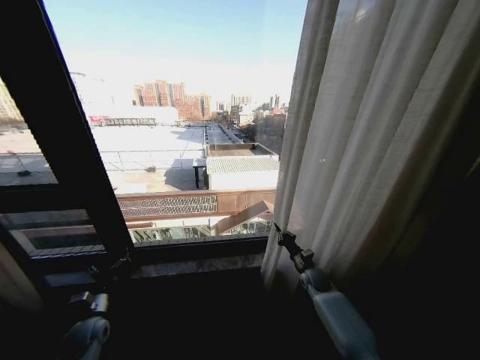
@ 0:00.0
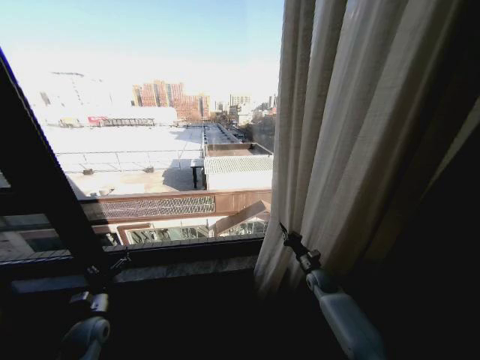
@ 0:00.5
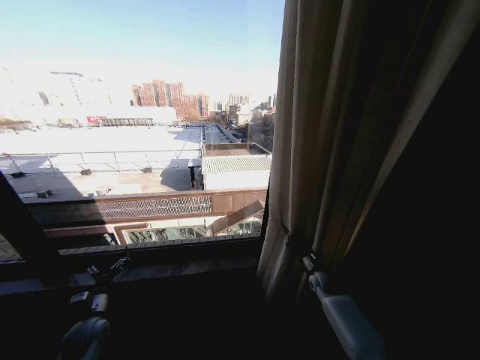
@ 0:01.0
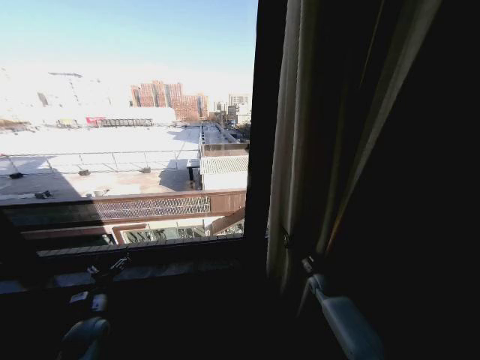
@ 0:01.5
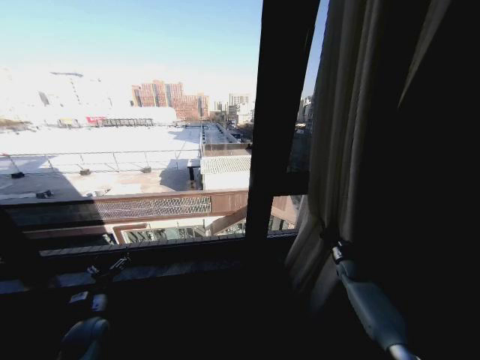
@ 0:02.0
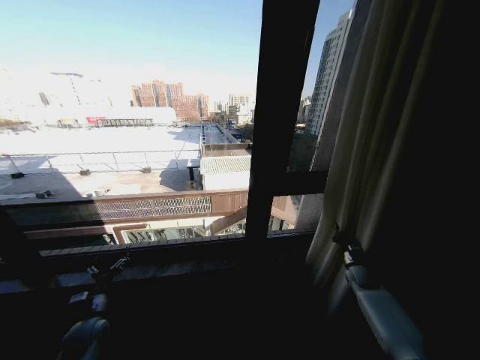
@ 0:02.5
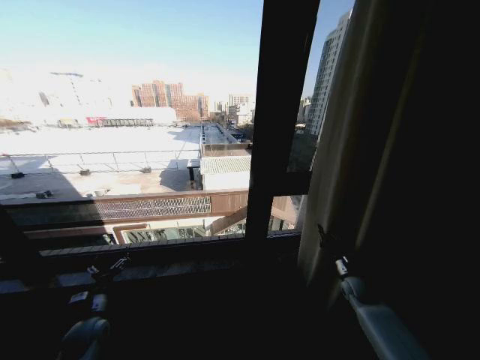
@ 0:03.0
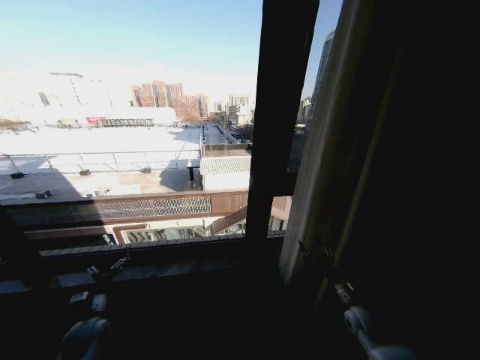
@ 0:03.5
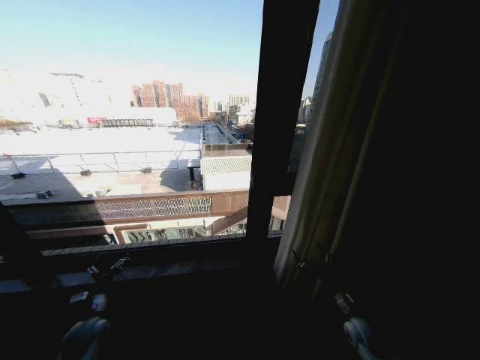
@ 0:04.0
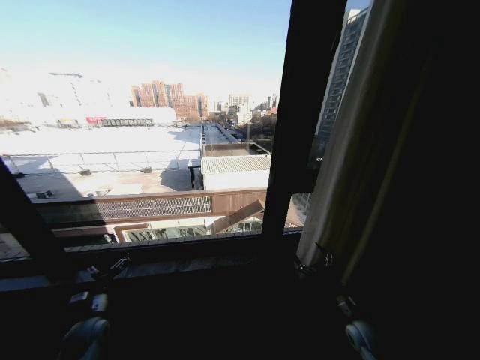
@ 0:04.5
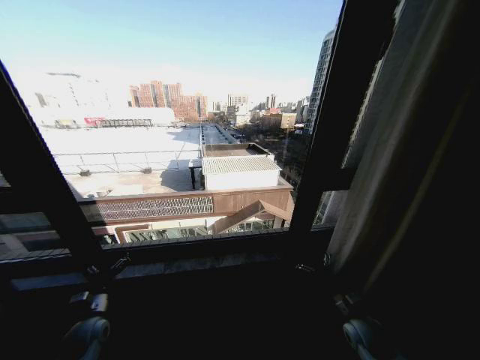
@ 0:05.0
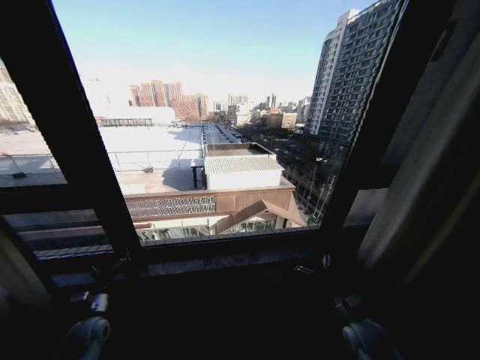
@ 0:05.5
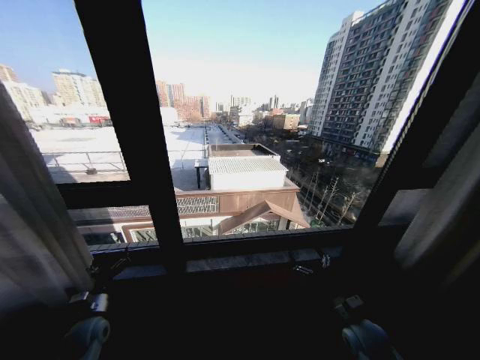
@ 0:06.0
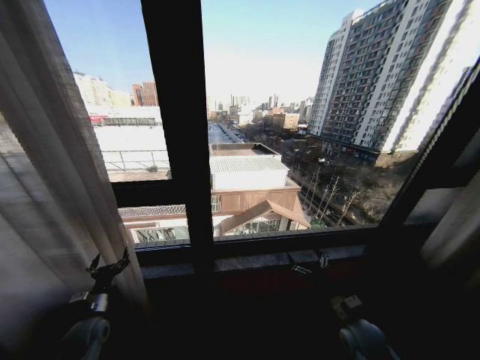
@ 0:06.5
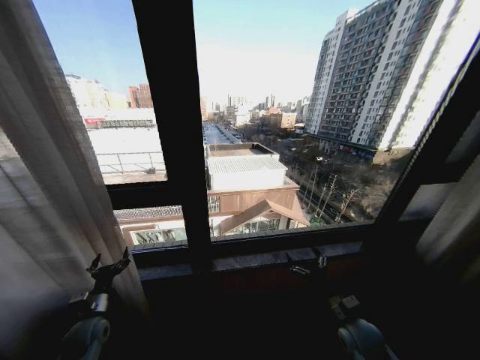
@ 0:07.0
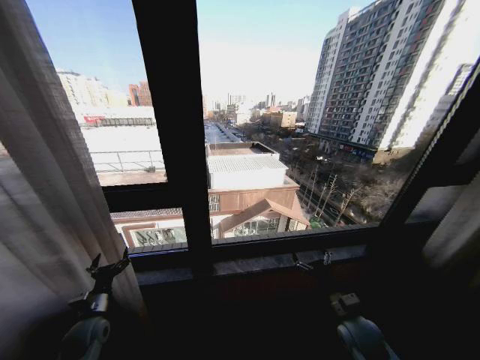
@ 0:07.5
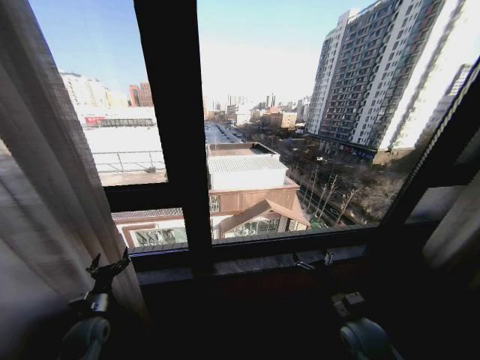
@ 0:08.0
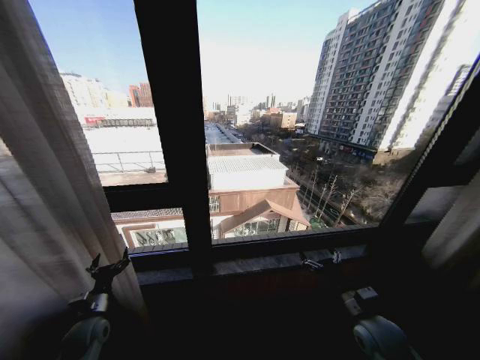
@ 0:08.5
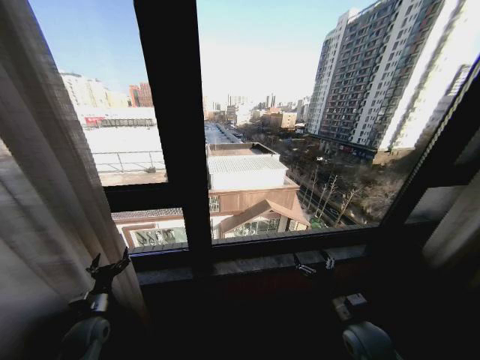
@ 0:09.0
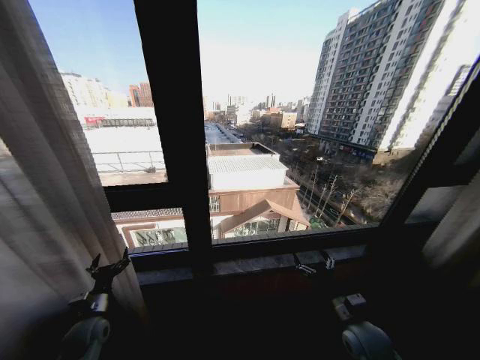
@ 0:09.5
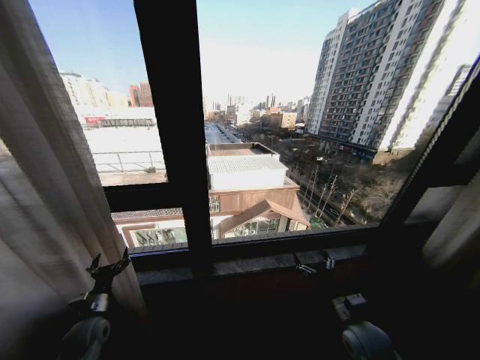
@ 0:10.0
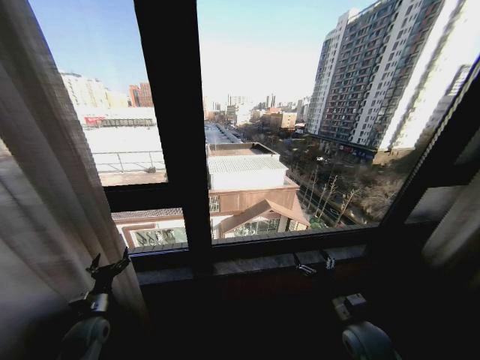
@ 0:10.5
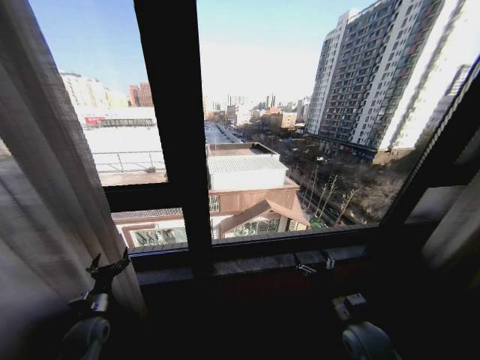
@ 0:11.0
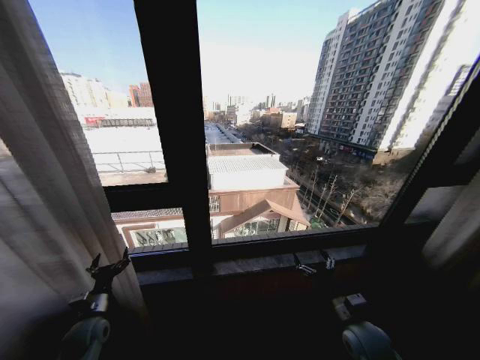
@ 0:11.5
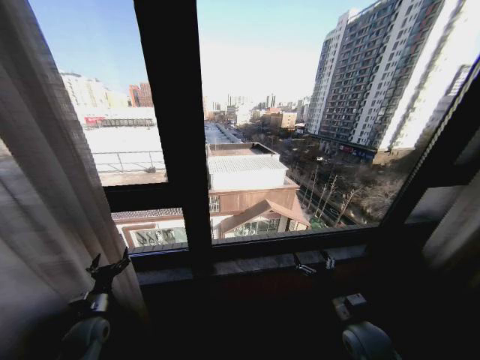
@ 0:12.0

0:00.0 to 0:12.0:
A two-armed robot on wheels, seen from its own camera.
Task of the whole recording: Open the curtains by pulling them apart, changing their state from closed to fully open.
0:00.0 to 0:02.0: The right gripper goes some 15 cm to the right.
0:02.0 to 0:04.0: The right gripper moves backward and to the left, about 20 cm, and opens up.
0:10.0 to 0:12.0: The two grippers keep their place.

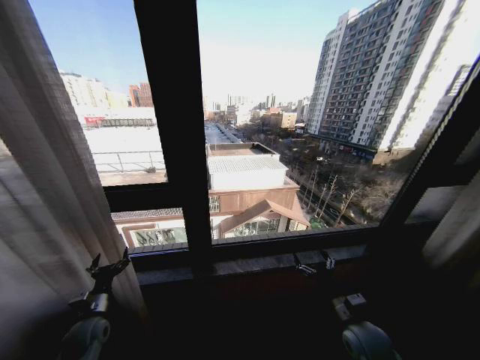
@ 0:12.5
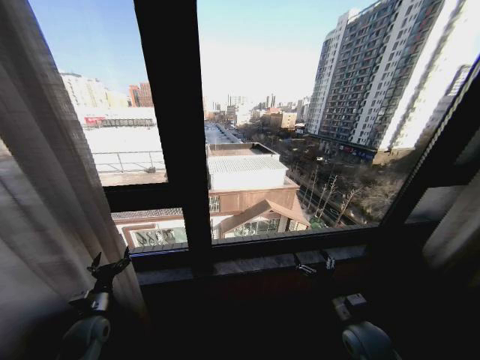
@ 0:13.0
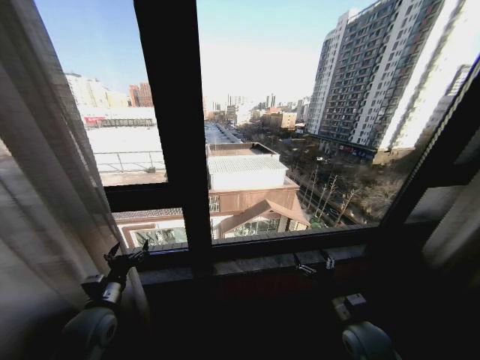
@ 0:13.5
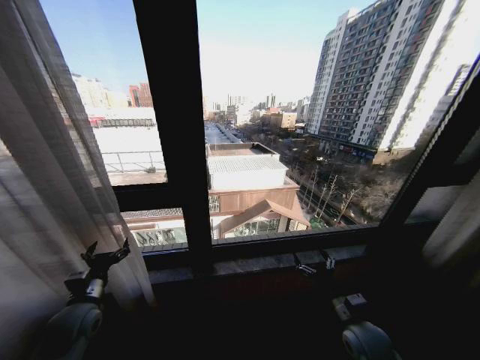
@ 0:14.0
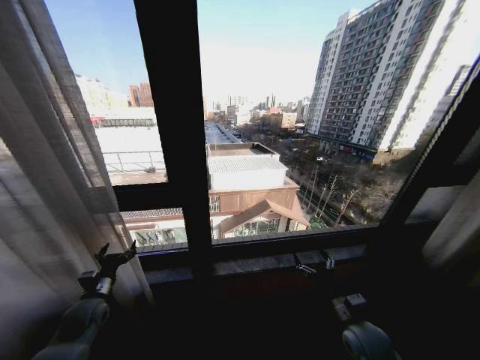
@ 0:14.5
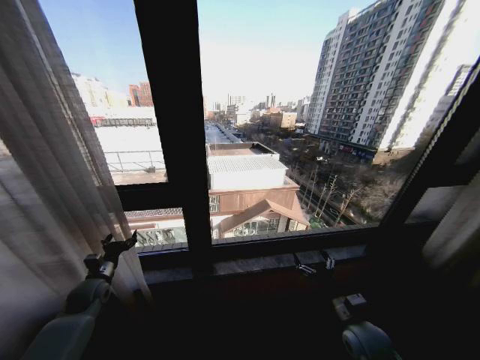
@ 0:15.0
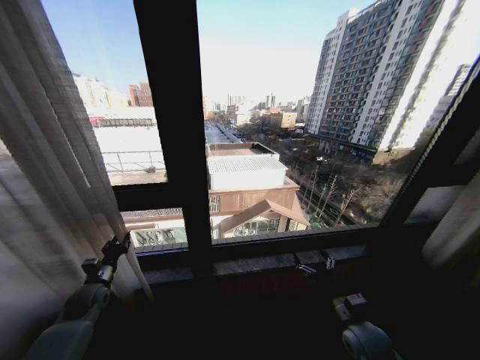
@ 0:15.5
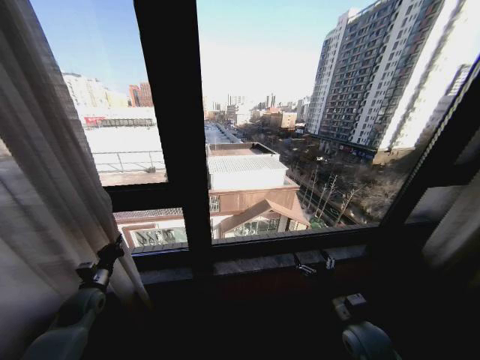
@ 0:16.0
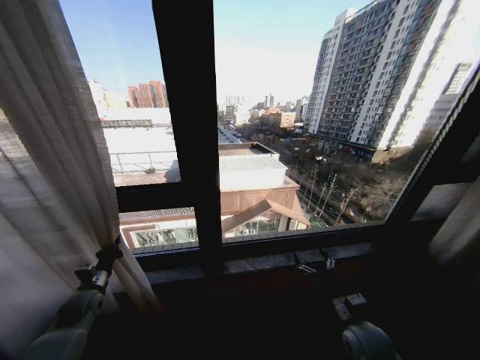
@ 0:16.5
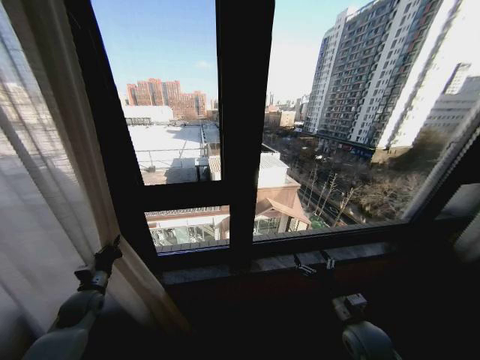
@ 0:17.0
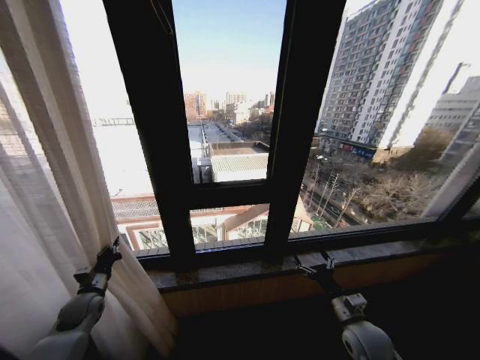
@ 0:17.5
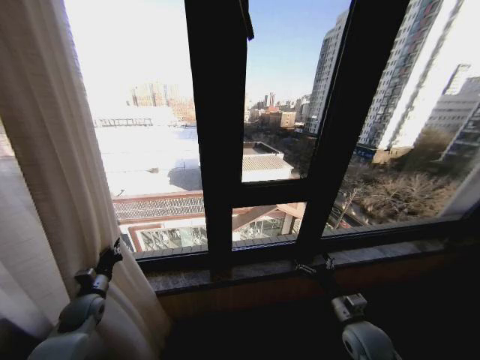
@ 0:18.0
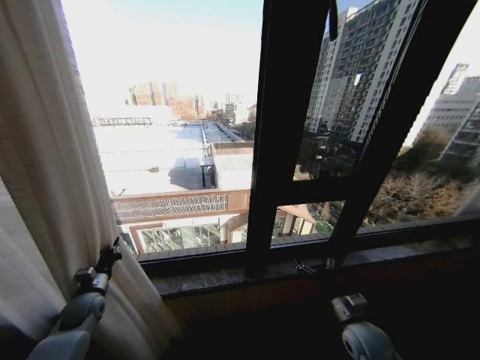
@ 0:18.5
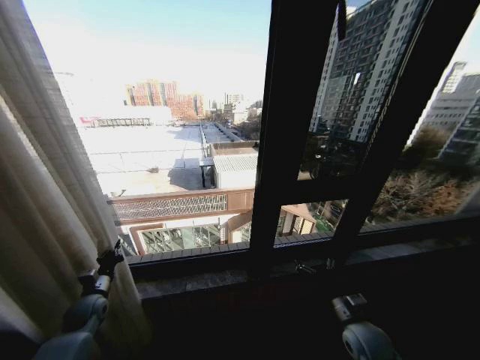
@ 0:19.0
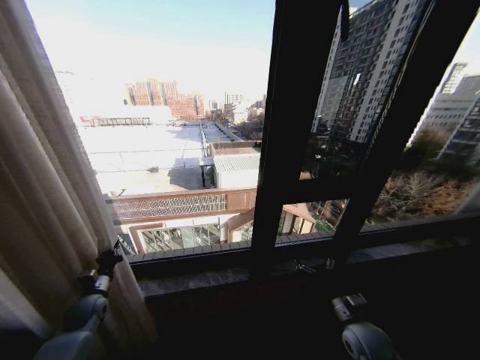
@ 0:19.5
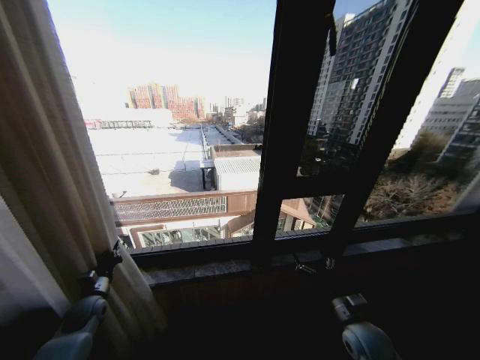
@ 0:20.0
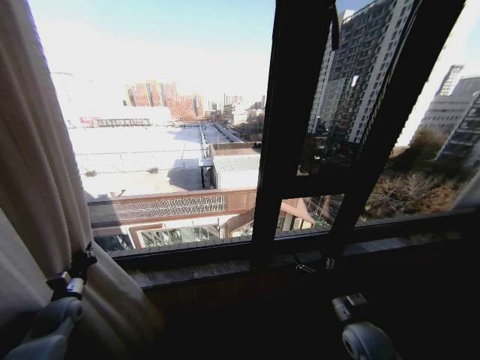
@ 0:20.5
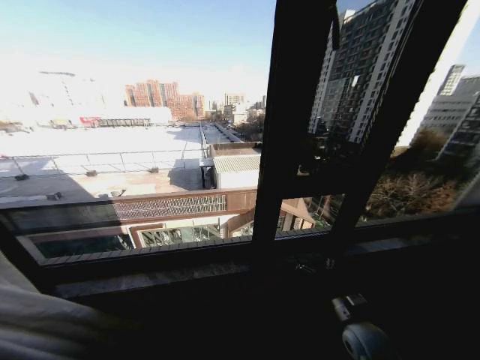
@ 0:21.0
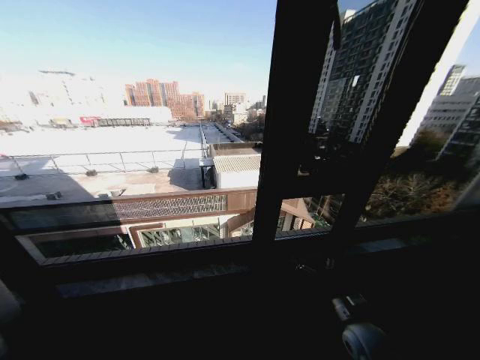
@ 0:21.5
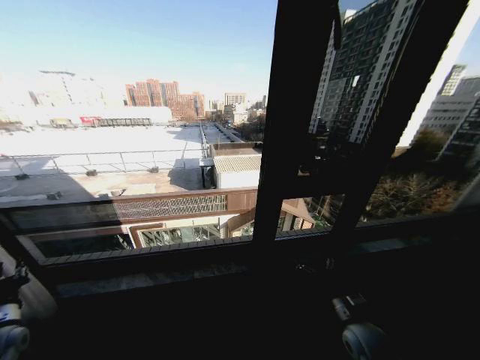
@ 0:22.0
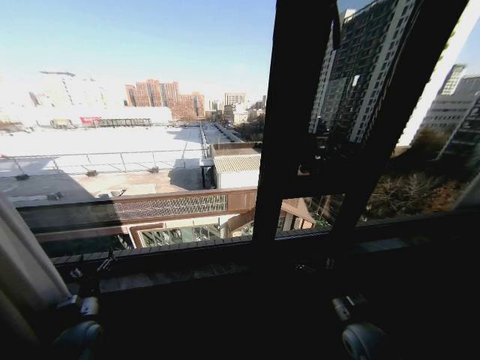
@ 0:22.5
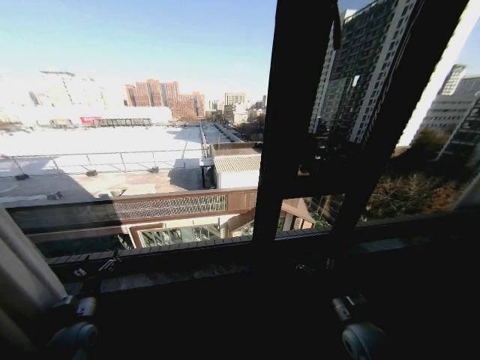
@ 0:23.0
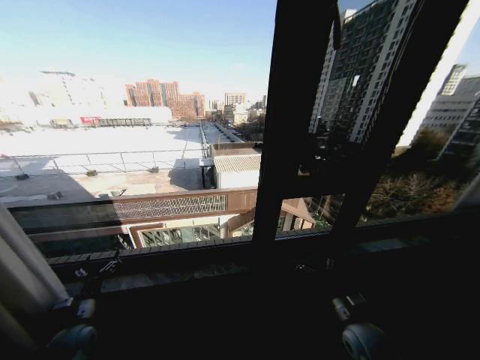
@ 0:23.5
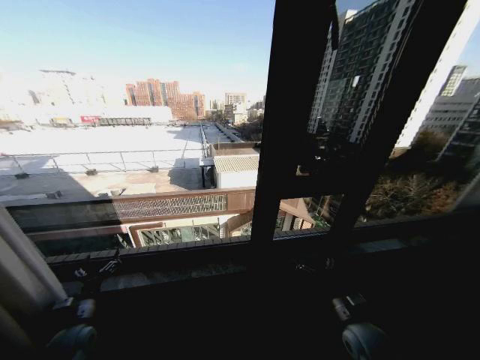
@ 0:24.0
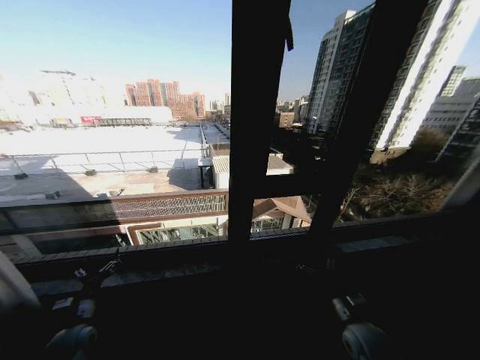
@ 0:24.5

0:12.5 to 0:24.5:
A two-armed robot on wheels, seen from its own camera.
Task of the whole recording: Open the curtains by pulling them apart, changing their state from closed to fully open.
0:14.5 to 0:16.5: The left gripper closes its fingers.
0:18.5 to 0:20.5: The left gripper shifts approximately 5 cm to the left.
0:20.5 to 0:22.5: The left gripper travels backward by approximately 5 cm, reaches approximately 20 cm to the left, then returns, and opens up.

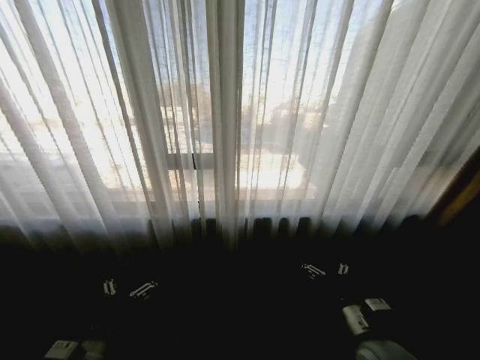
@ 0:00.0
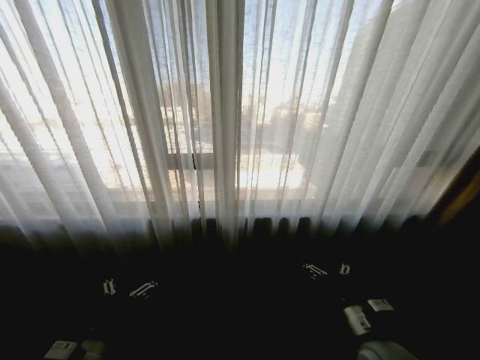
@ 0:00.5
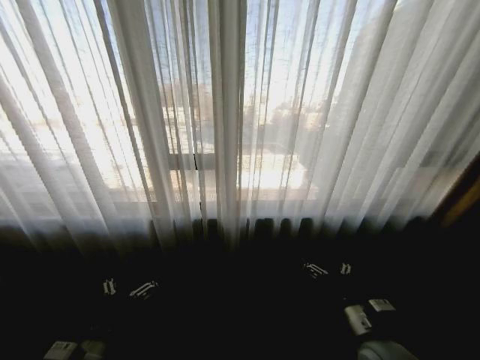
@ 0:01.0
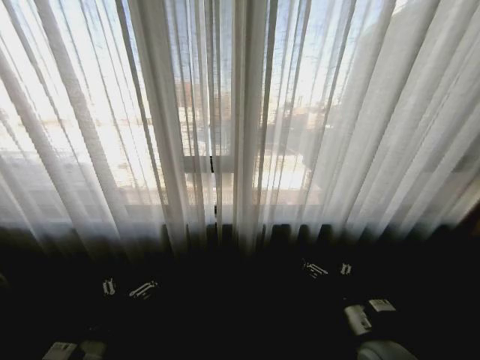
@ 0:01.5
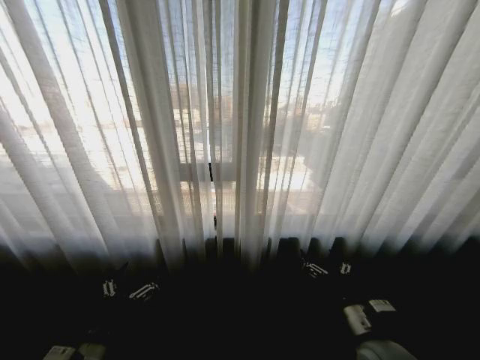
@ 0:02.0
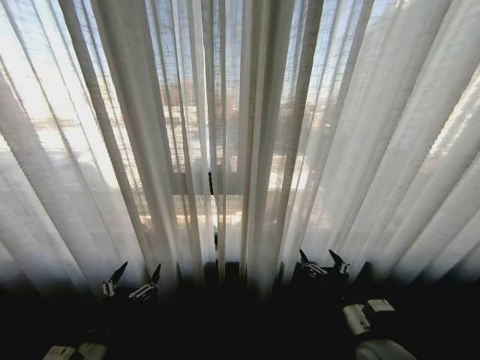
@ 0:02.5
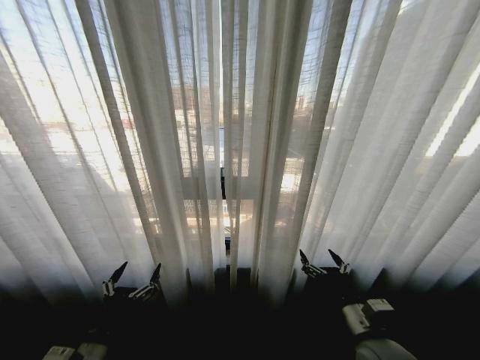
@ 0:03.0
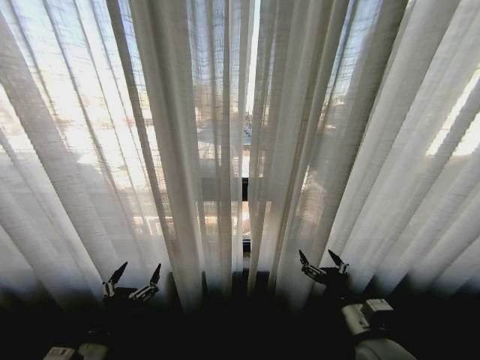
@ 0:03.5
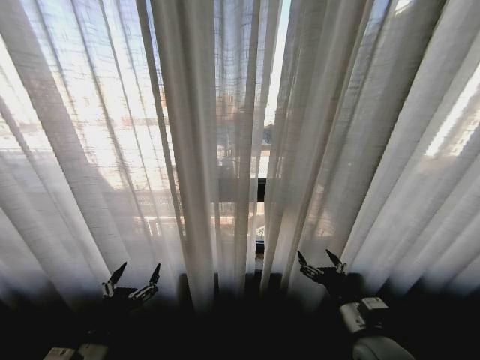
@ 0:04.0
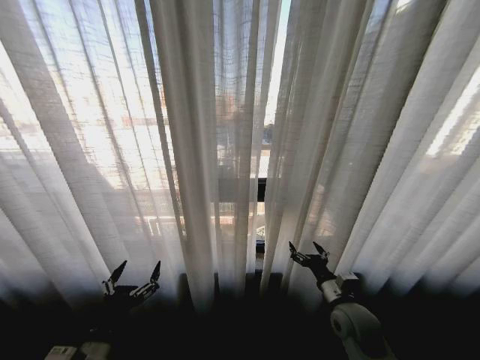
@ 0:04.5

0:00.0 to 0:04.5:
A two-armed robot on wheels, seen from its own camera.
Task of the whole recording: Open the curtains by pulling them apart, changing their state from closed to fully open.
0:02.0 to 0:04.5: The right gripper travels forward by roughly 10 cm.
